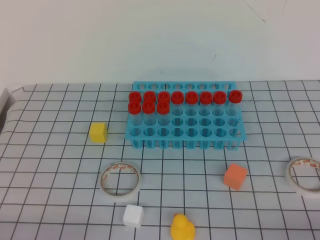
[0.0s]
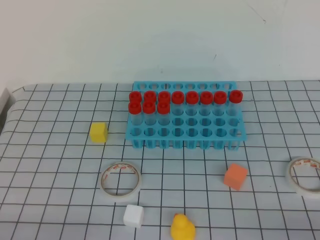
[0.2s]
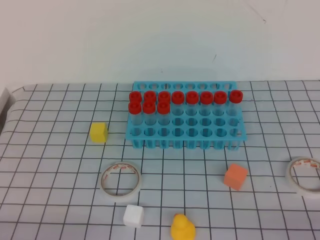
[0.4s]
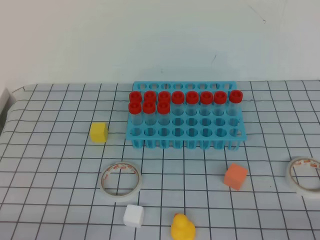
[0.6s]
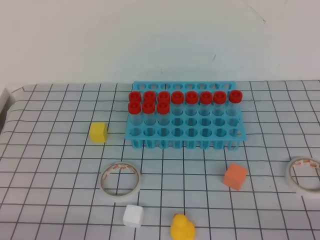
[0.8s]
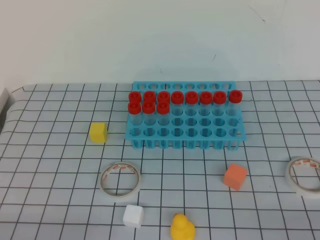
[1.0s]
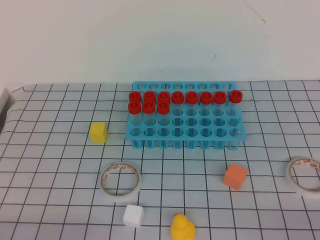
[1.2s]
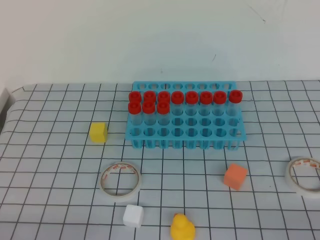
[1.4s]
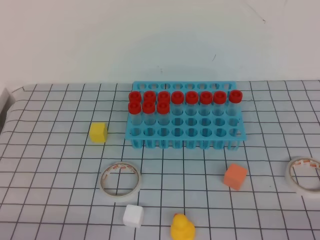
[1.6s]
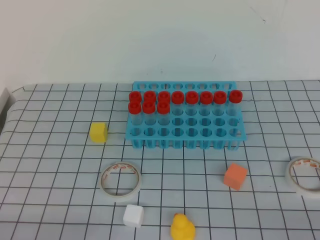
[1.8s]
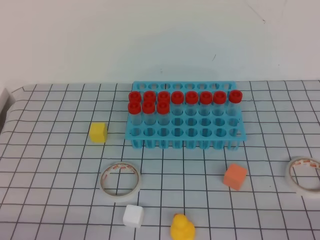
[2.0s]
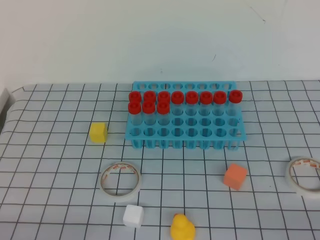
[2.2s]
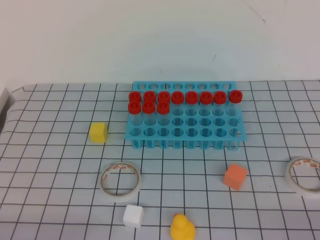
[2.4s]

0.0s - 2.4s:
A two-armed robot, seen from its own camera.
1.2s - 2.4s: Both grippers stay put.
